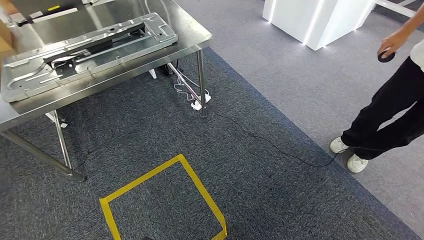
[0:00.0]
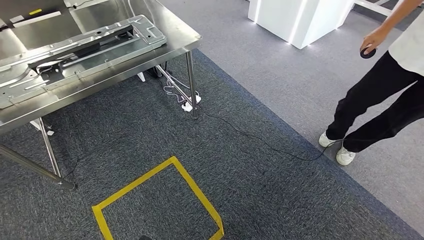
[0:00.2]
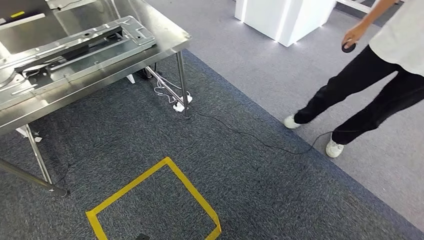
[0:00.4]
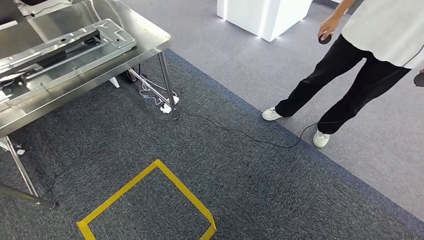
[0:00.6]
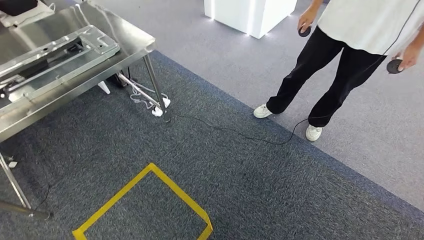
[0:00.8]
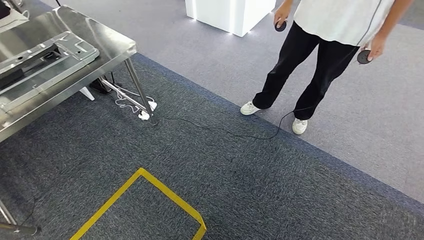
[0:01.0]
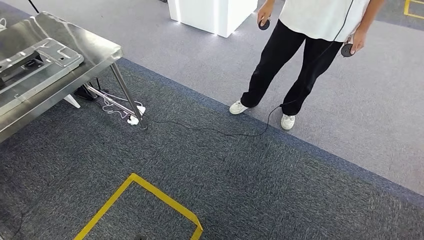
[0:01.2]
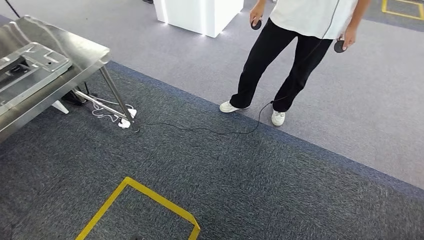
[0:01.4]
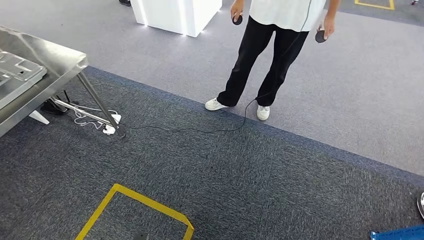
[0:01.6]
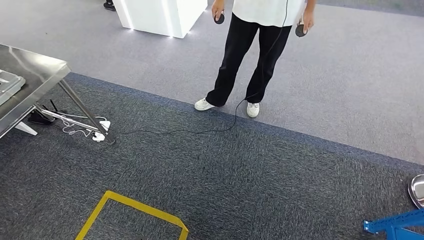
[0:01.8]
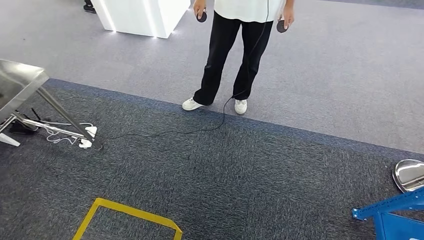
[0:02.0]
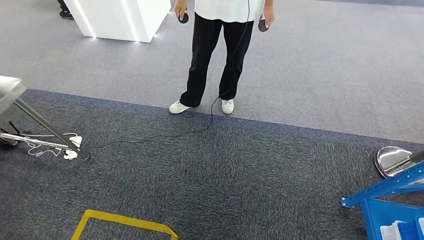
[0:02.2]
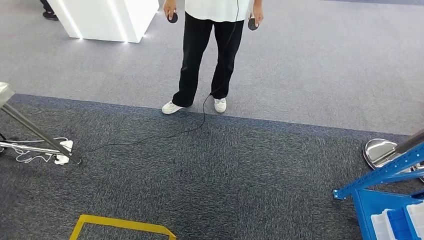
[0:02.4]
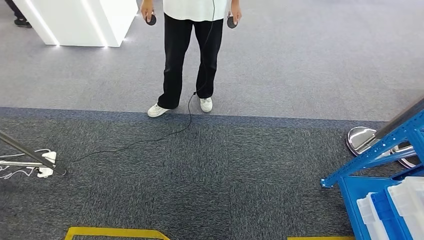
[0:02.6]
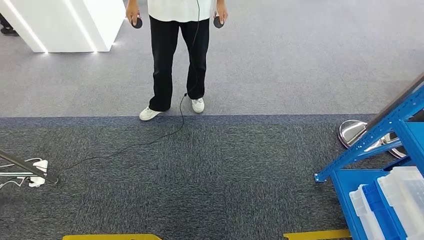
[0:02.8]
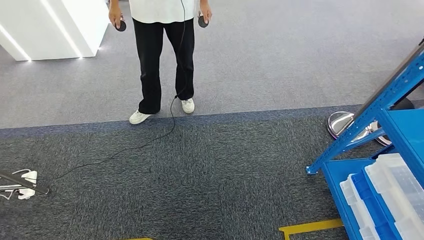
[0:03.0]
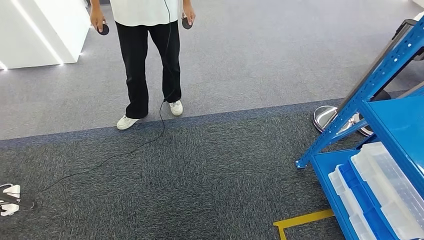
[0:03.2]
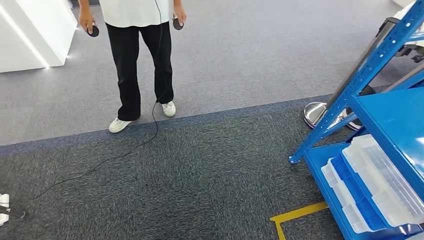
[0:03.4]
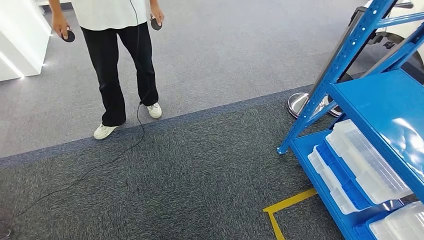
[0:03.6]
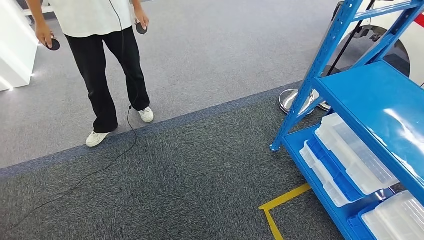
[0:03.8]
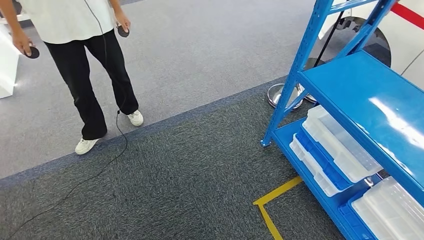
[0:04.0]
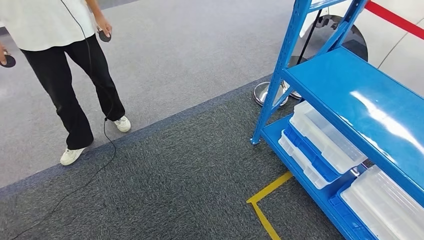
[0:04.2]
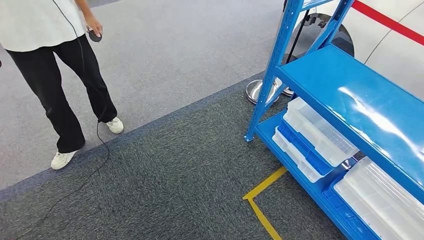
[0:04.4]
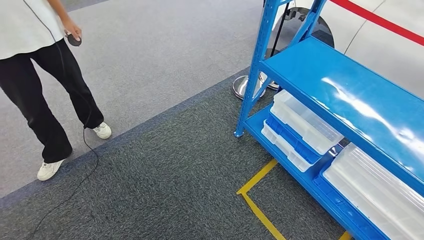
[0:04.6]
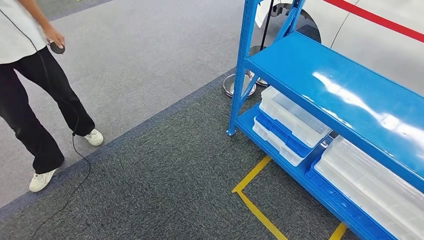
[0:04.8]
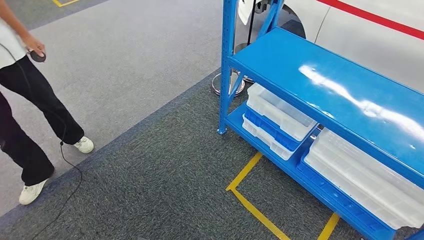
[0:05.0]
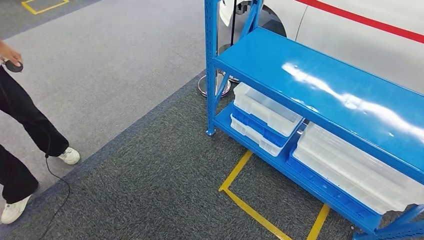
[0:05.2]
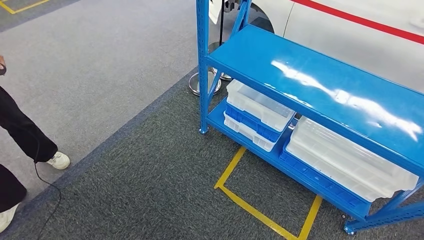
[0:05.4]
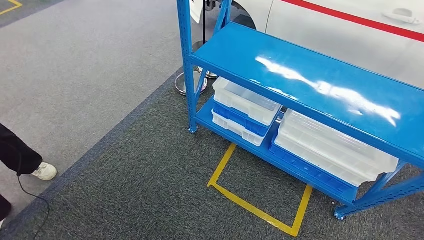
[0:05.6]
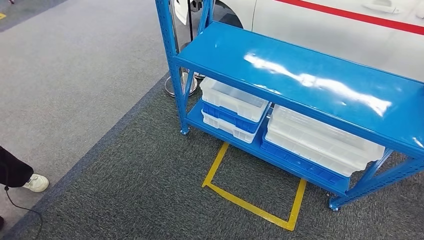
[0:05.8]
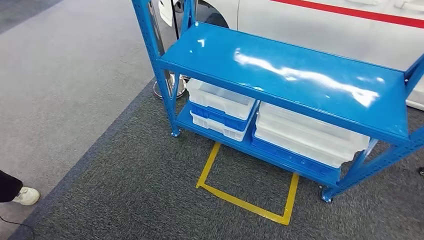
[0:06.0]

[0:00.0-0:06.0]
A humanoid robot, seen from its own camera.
Step, 0:00.0 to 0:05.8: Move to the initial position of the shelf.
